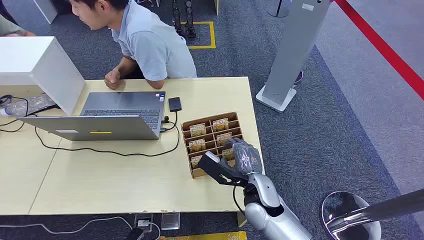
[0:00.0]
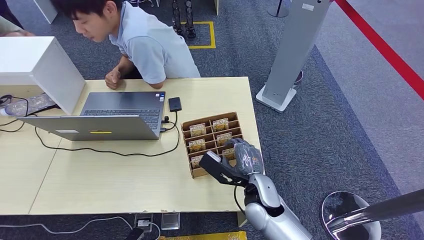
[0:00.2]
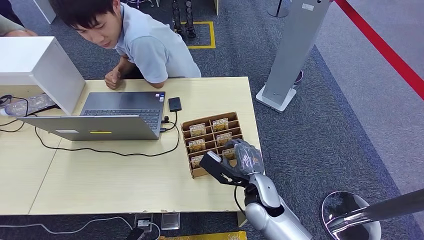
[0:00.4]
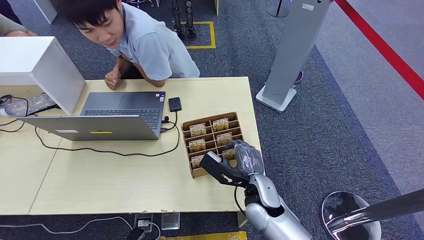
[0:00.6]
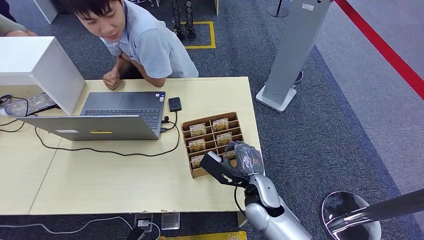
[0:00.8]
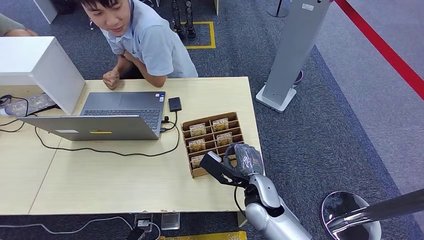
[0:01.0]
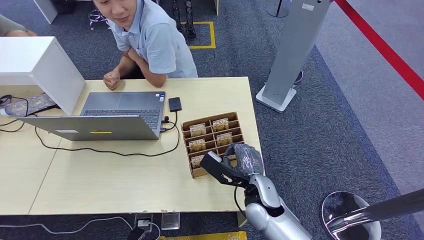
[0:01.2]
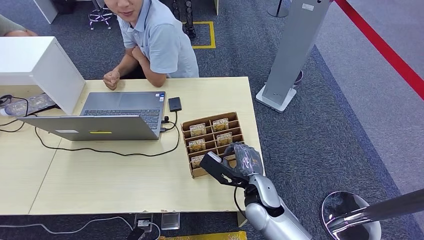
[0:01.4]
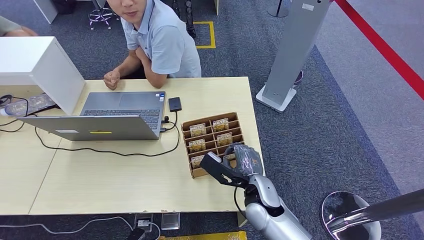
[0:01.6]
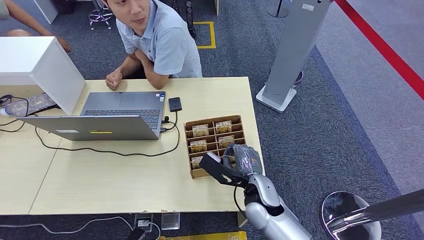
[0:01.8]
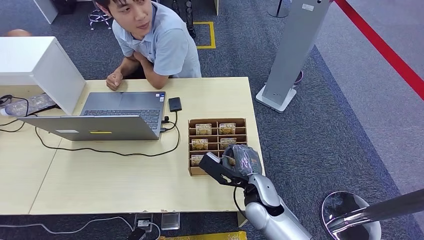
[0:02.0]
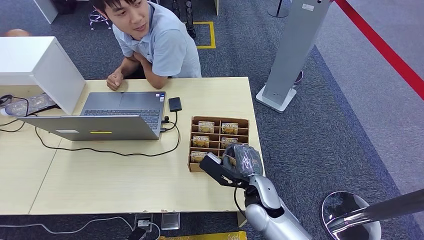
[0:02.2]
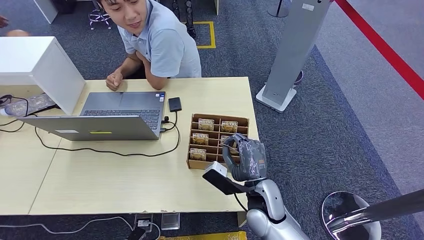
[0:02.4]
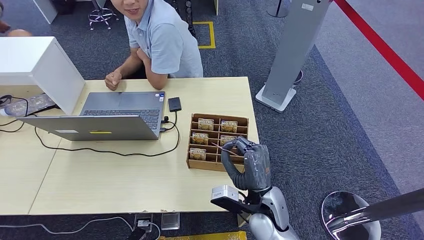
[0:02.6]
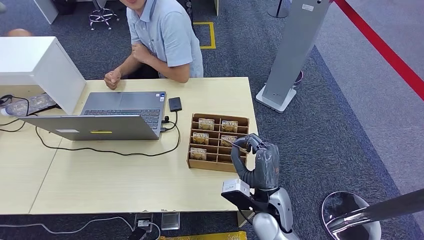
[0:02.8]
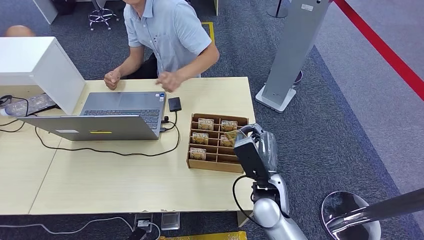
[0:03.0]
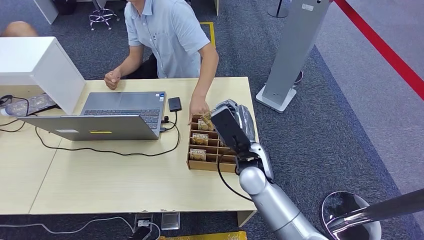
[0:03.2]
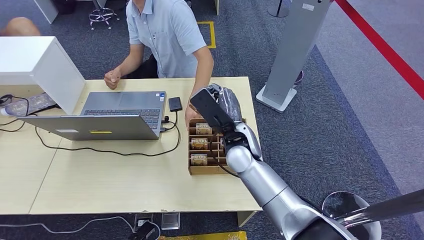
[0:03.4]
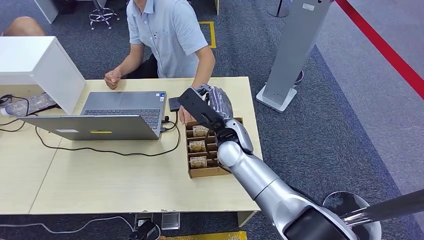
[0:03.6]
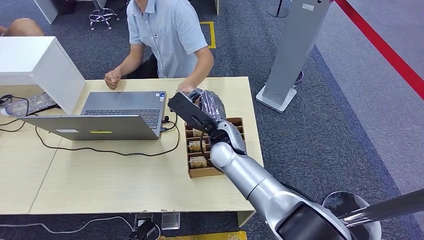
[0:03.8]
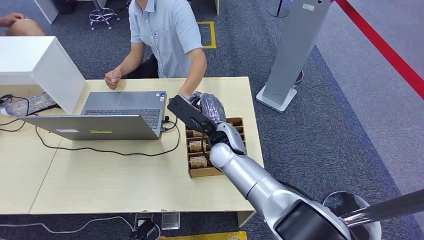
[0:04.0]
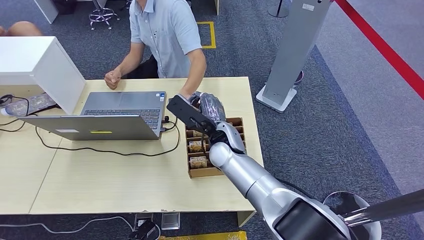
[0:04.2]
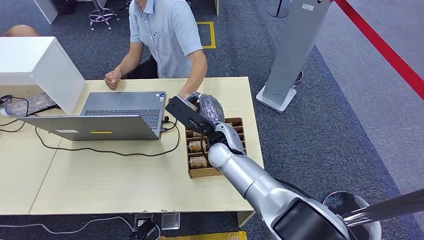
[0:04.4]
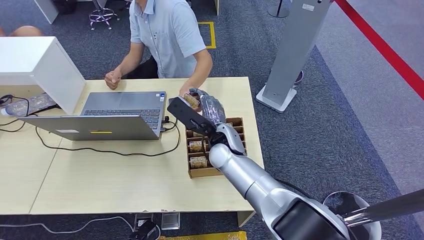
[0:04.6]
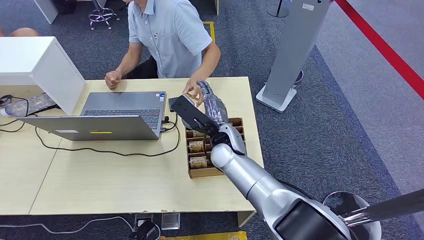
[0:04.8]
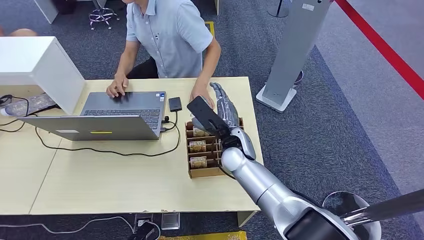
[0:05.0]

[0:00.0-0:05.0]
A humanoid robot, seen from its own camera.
Step, 0:00.0 to 0:02.6: Pick up the key card from the card box.
Step, 0:03.4 to 0:04.8: Hand the key card to the target.
0:01.6 to 0:03.4: The right hand travels upward and forward by about 15 cm.
0:03.4 to 0:05.0: The hands stay close to where they were, moving slightly.
